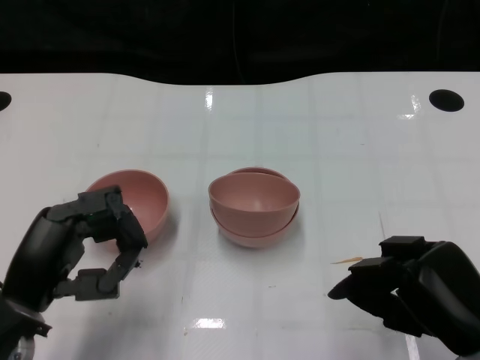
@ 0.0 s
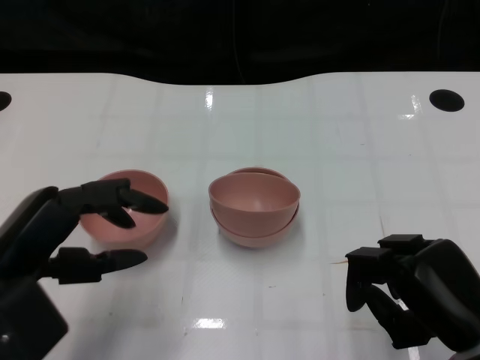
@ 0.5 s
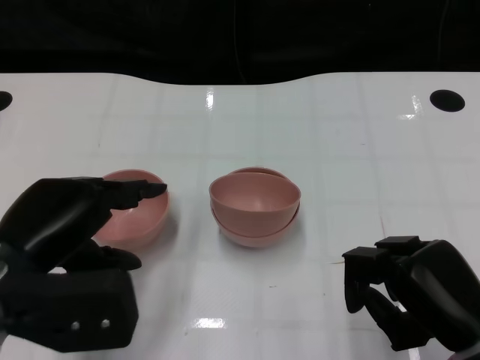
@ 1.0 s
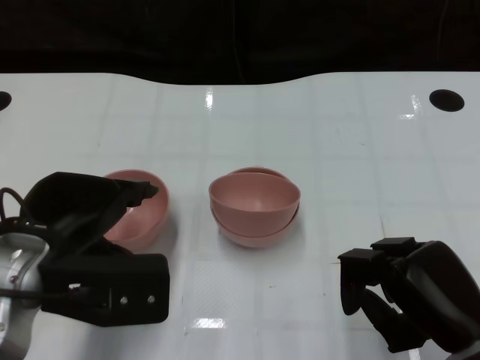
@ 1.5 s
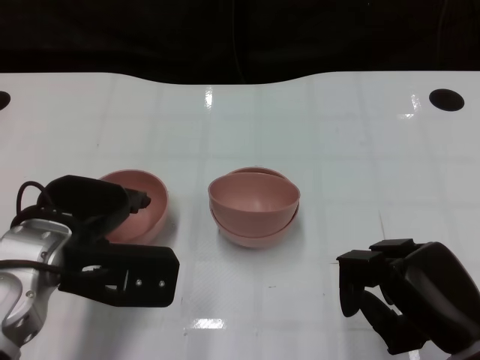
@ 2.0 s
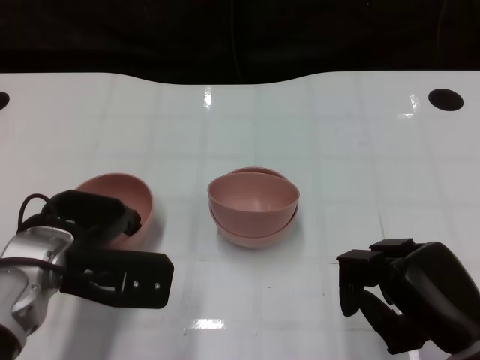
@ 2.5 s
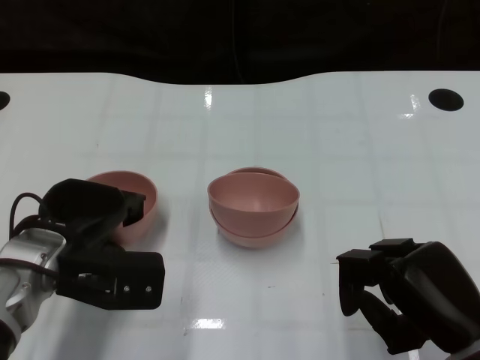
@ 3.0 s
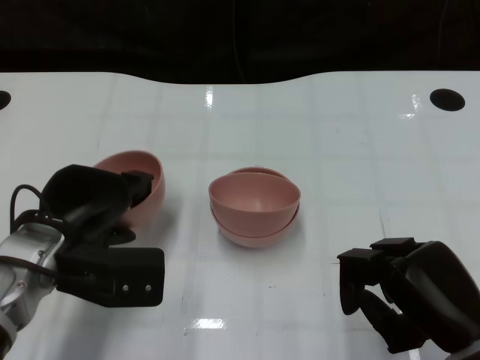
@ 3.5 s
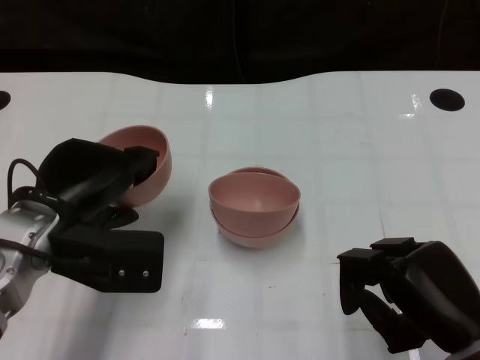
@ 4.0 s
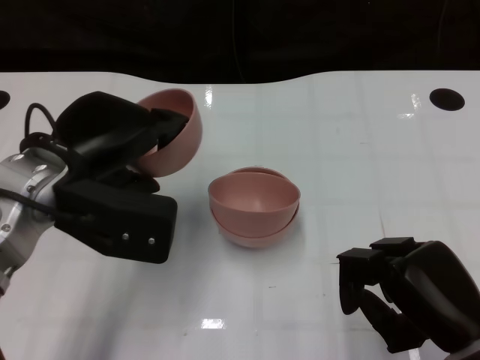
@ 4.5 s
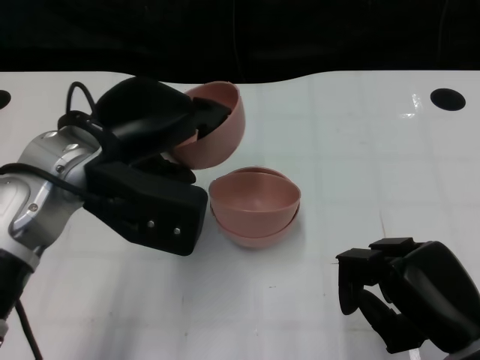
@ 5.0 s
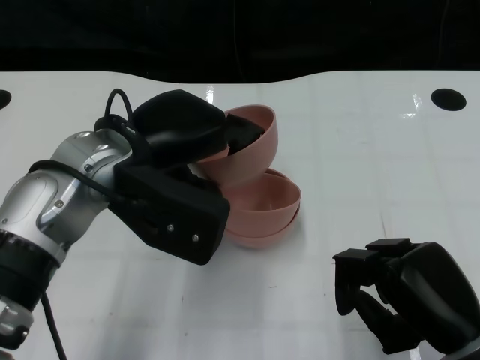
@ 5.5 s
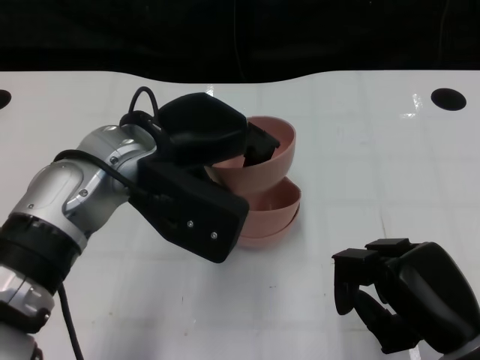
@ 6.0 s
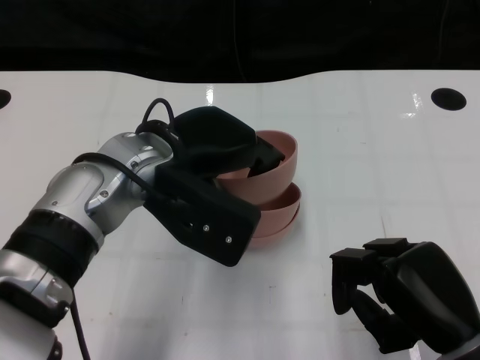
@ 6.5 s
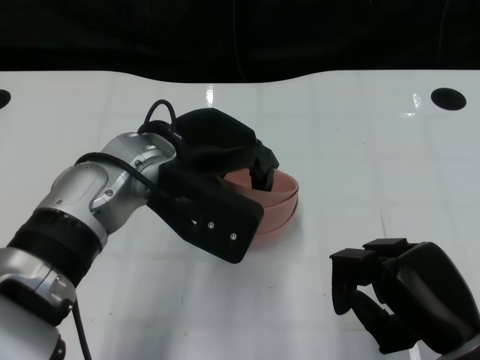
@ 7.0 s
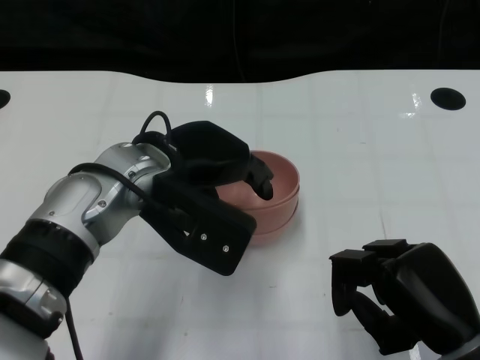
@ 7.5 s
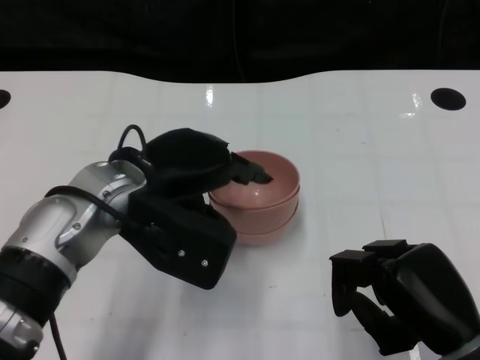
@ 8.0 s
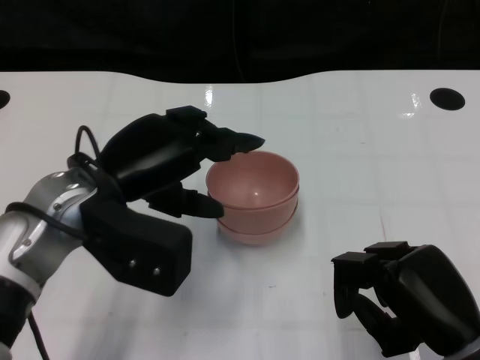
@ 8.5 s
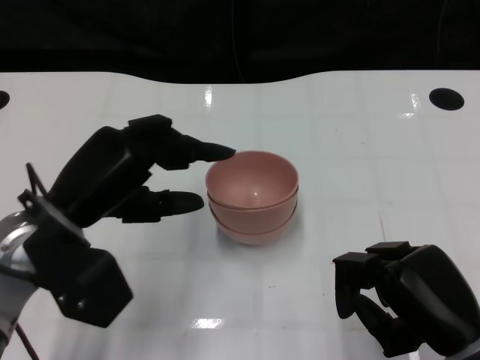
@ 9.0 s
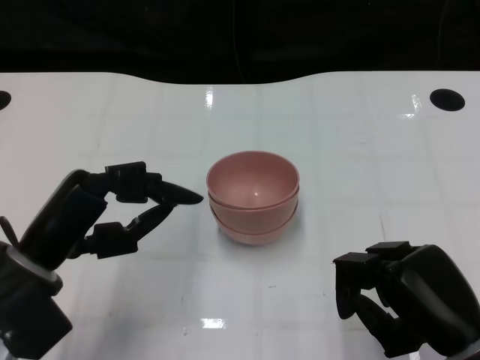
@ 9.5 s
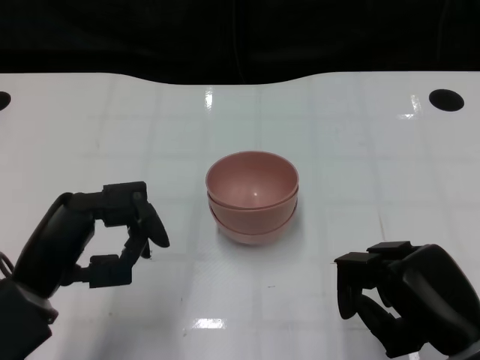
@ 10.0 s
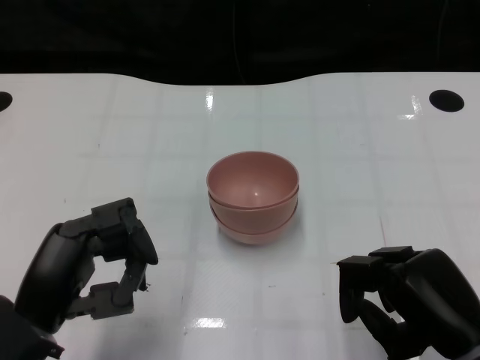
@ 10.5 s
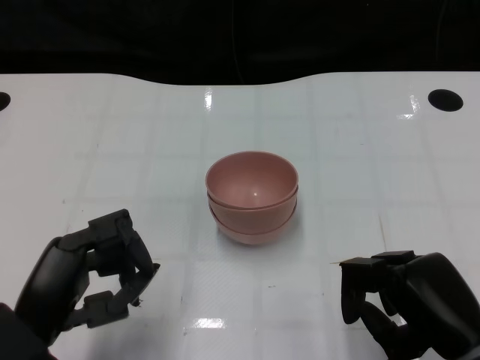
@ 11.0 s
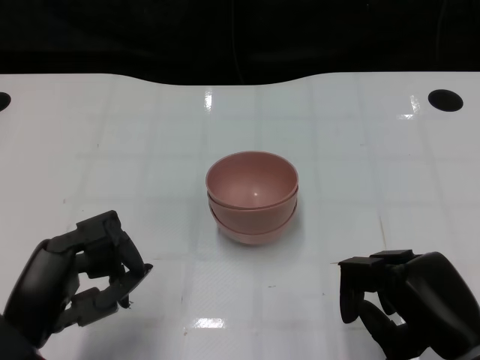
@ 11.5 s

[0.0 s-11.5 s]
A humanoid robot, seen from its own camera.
Task of the whole recording: Pick up the bowl on one side of the table and place it on top of the middle bowl, then pick up the bowl on the other side of the table and place it on top of the middle bowls.
Step, 0.0 to 3.5 s: Grasp the bowl on the left with the left gripper.
Step, 4.0 to 8.5 s: Place the bowl on the left onto the bowl in the middle with left gripper.
0.0 to 2.0 s: The left hand travels forward by roughly 5 cm.
4.0 to 6.0 s: The left hand moves to the right and upward, roughly 10 cm.
6.0 to 7.5 s: The hands move only a little.
7.5 to 9.5 s: The left hand travels to the left, backward and downward by approximately 15 cm.
9.5 to 11.5 s: The left hand moves backward, about 5 cm.

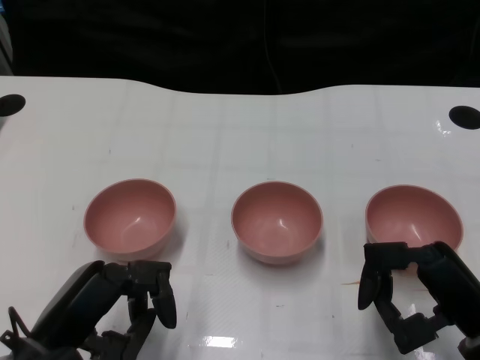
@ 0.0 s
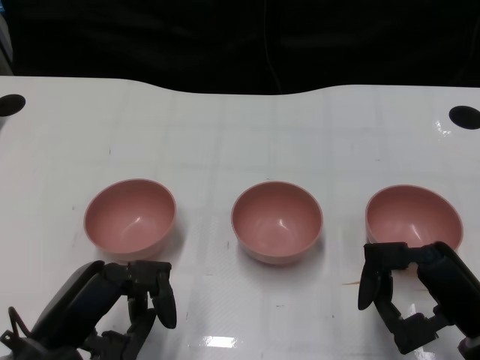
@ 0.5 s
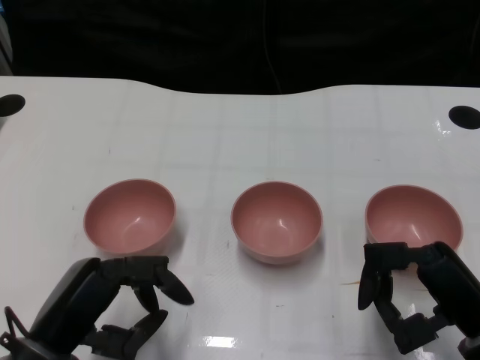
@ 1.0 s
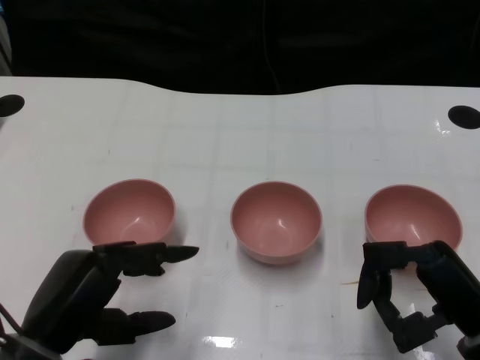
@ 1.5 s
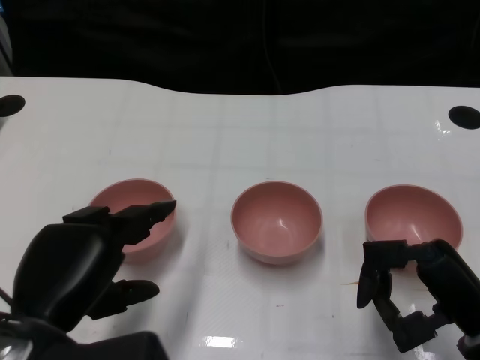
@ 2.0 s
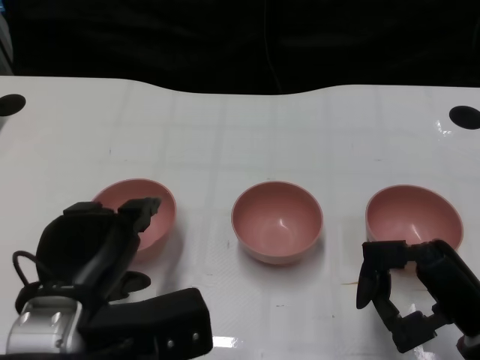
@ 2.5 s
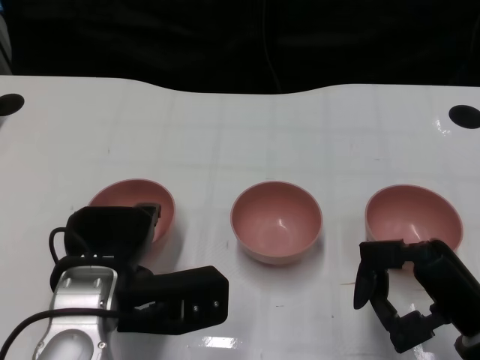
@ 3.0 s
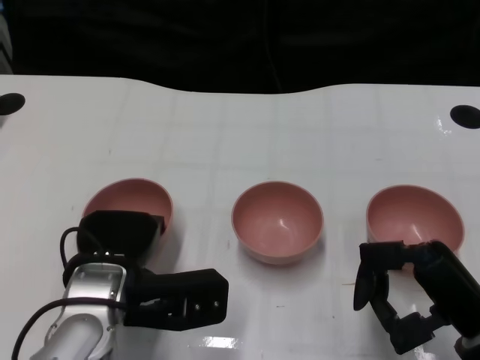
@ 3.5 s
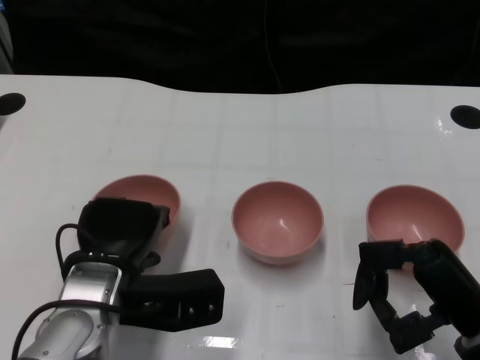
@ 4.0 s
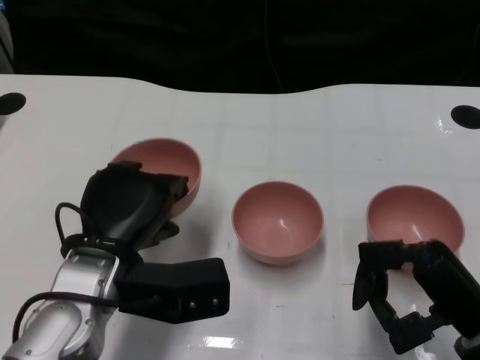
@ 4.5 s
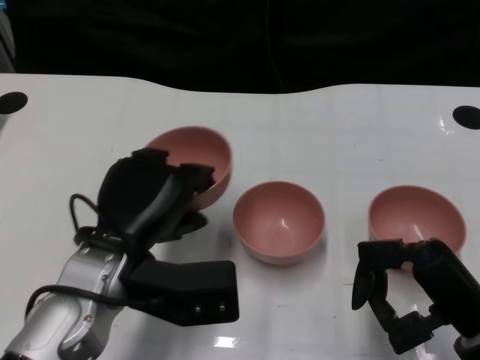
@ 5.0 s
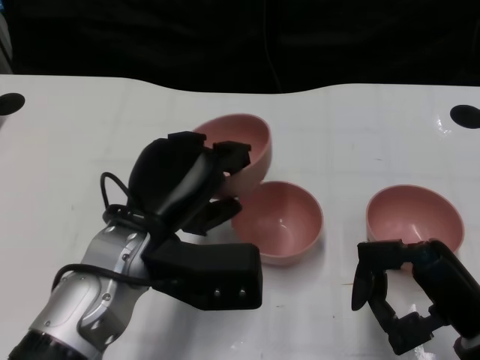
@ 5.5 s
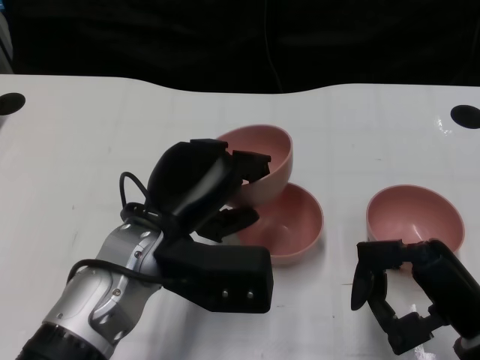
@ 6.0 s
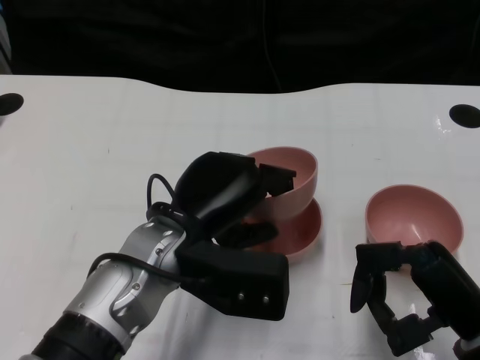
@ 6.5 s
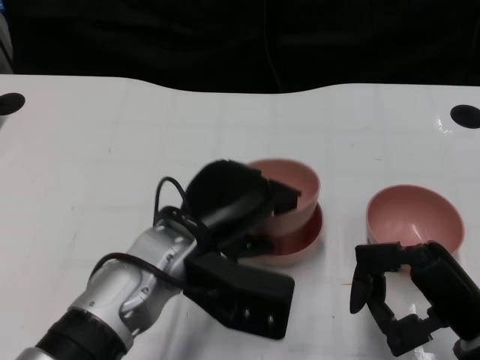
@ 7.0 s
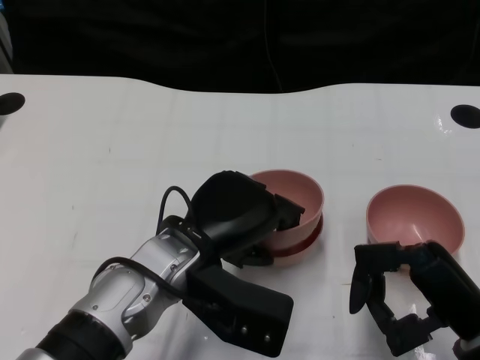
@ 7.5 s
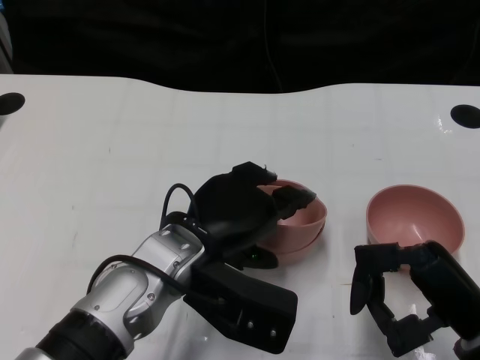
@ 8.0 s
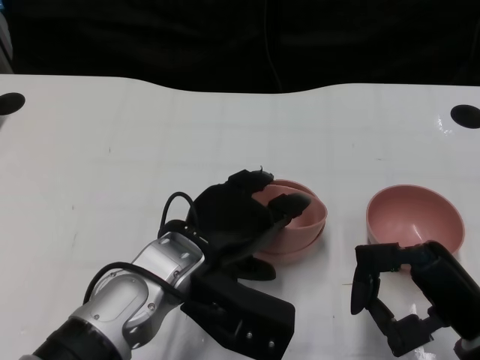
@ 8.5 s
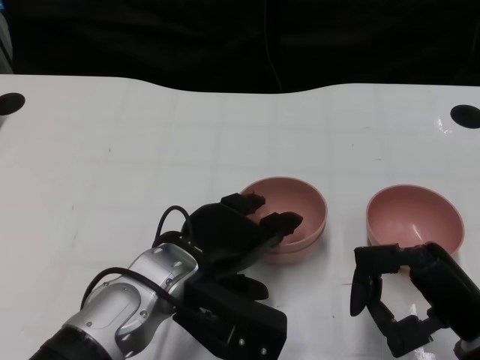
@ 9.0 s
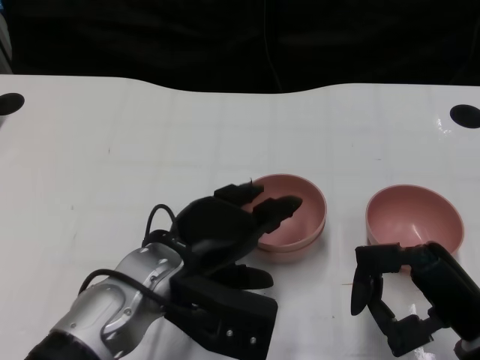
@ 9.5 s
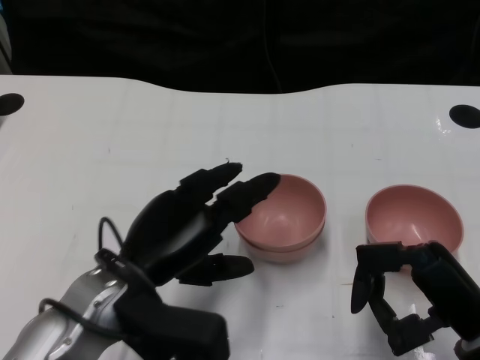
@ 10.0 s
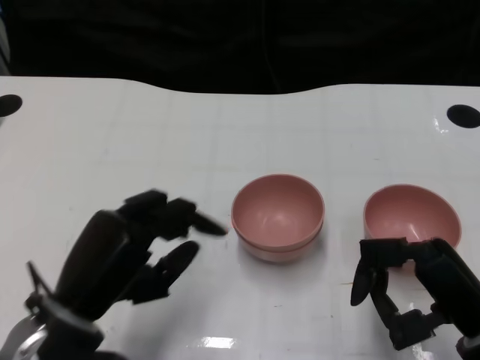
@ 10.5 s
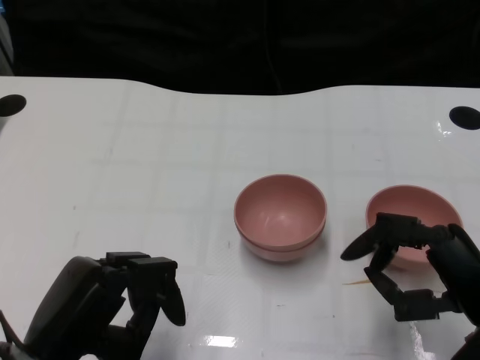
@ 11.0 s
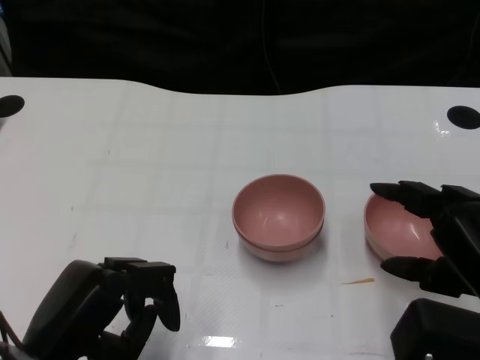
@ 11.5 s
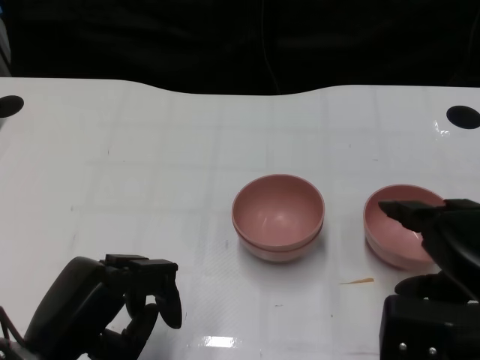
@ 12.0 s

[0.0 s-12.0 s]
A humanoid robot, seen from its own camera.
Task of the whole recording: Pick up the bowl on one side of the table and place it on top of the middle bowl, then pick up the bowl on the other side of the table and place it on top of the middle bowls.
Step, 1.0 to 4.0 s: Grasp the bowl on the left with the left gripper.
Step, 4.5 to 9.0 s: Place the bowl on the left onto the bowl in the middle with left gripper.
2.0 to 4.0 s: The left hand travels forward, to the right and downward by roughly 10 cm.
4.0 to 6.0 s: The left hand heads upward, covering roughly 5 cm.
8.0 to 10.0 s: The left hand goes some 5 cm to the left.
10.0 to 12.0 s: The left hand moves to the left and backward, approximately 10 cm, while the right hand goes some 5 cm upward.

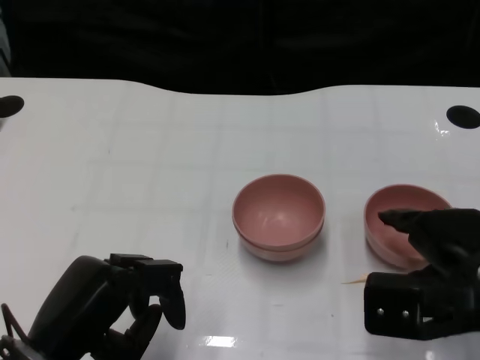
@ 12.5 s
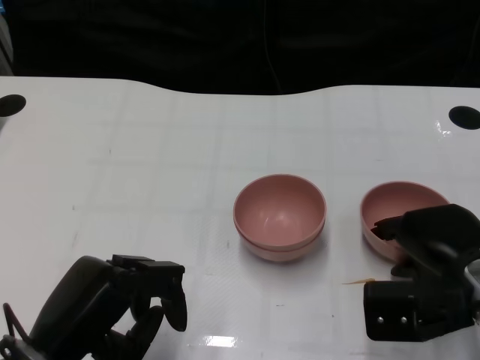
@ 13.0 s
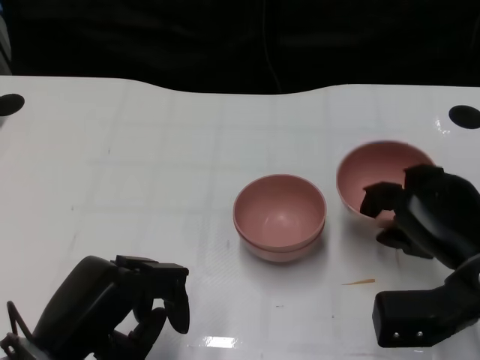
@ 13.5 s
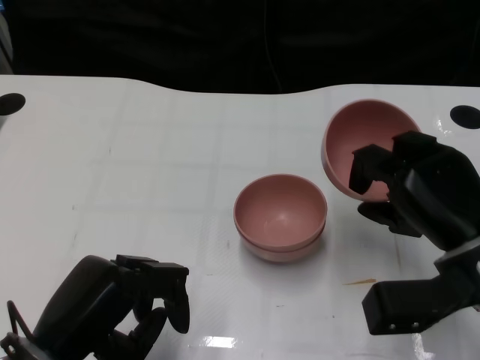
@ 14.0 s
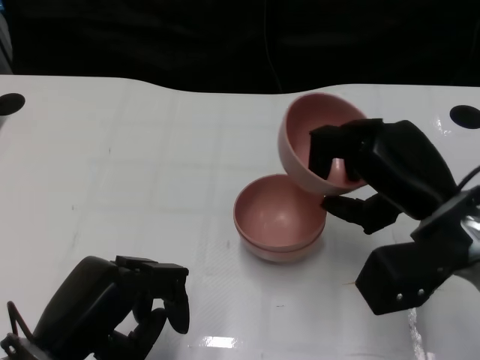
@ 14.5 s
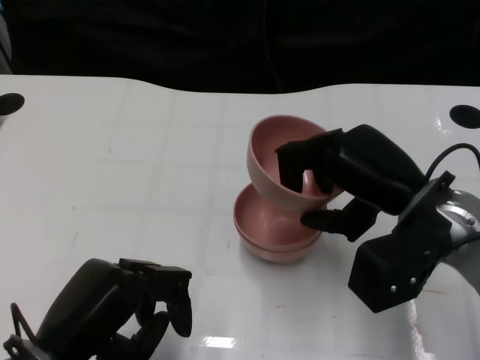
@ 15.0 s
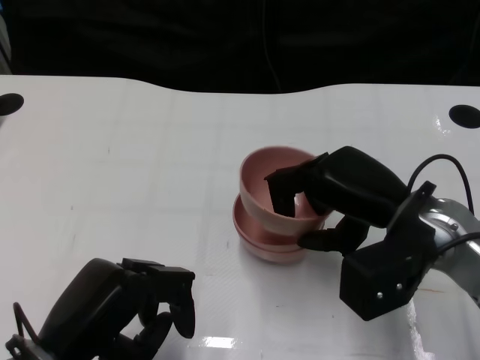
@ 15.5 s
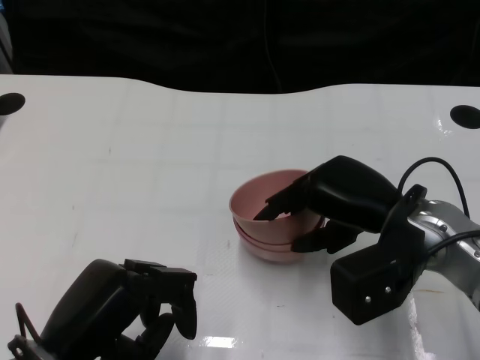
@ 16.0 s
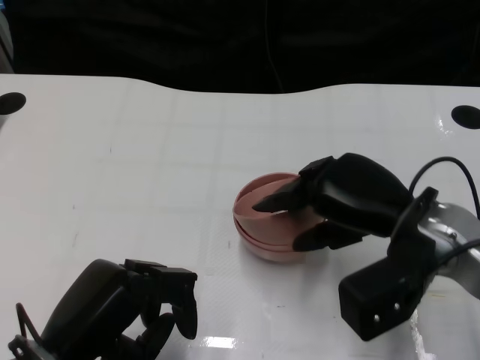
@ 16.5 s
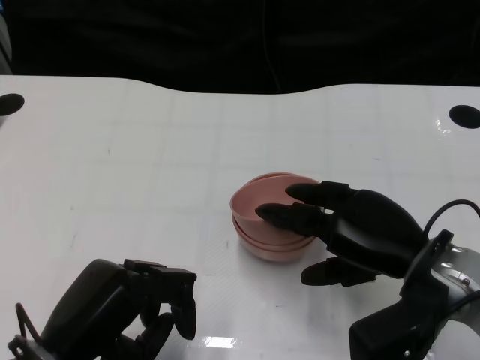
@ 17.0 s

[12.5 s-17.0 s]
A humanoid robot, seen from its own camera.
Task of the whole recording: Pick up the bowl on one side of the table and place it on top of the middle bowl, then pick up the bowl on the other side of the table and place it on top of the middle bowls.
12.5 to 14.5 s: The right hand ends up some 5 cm from where it was.
